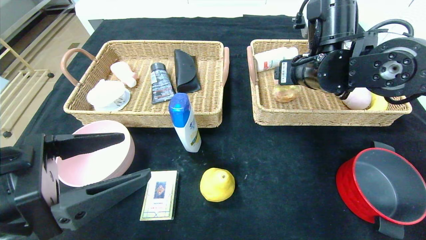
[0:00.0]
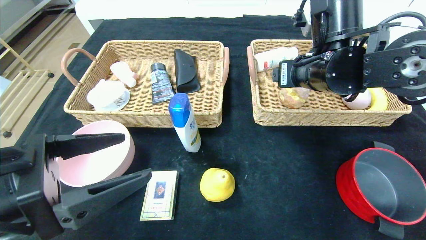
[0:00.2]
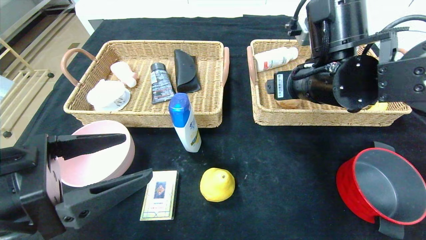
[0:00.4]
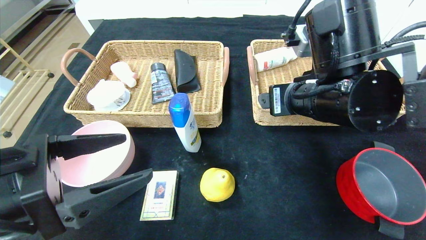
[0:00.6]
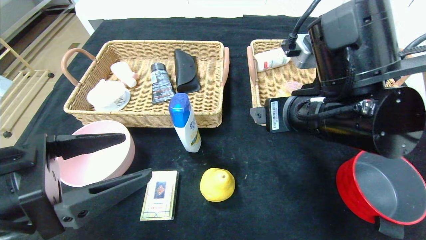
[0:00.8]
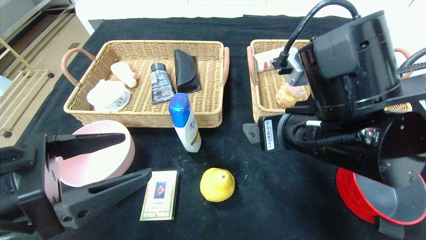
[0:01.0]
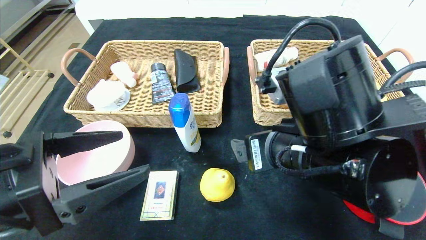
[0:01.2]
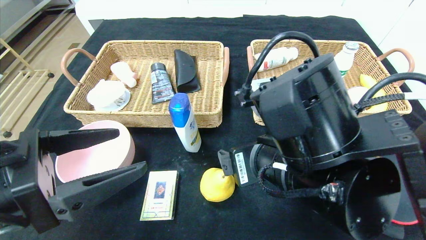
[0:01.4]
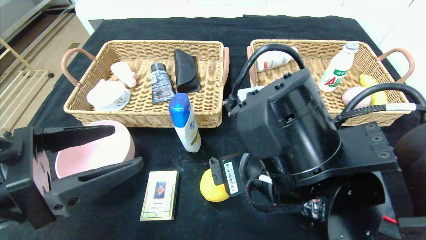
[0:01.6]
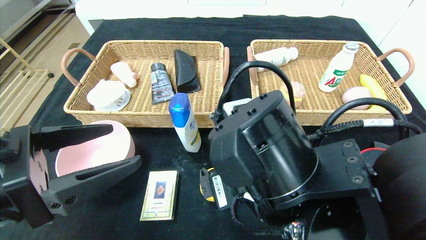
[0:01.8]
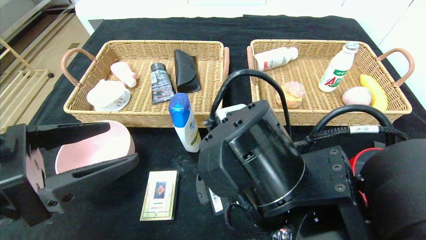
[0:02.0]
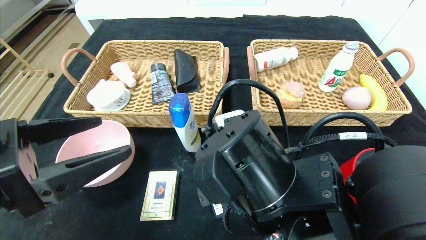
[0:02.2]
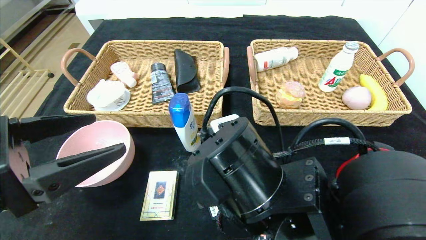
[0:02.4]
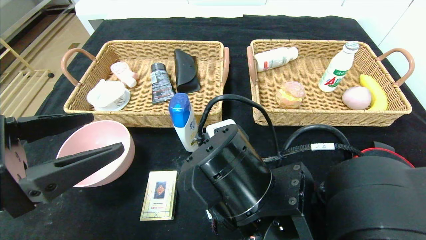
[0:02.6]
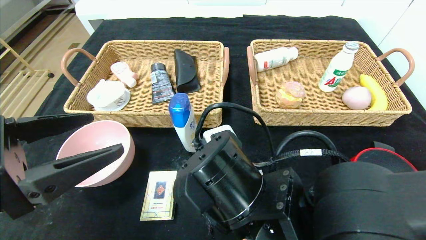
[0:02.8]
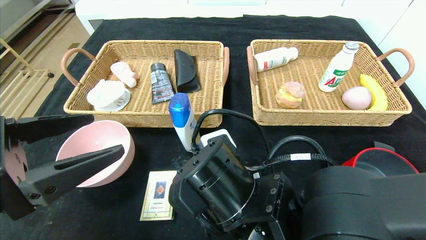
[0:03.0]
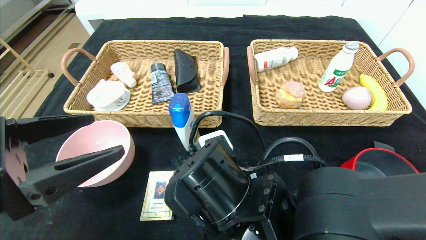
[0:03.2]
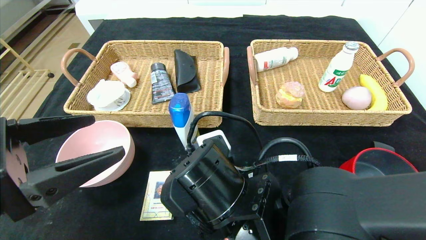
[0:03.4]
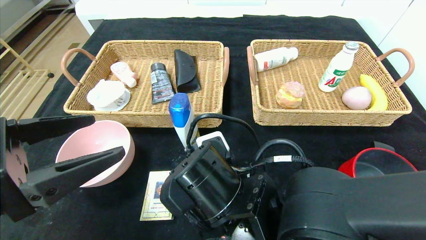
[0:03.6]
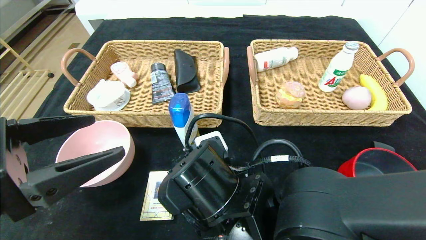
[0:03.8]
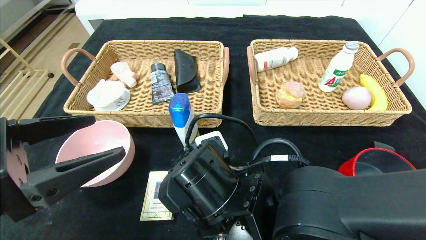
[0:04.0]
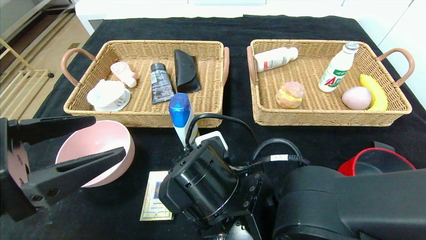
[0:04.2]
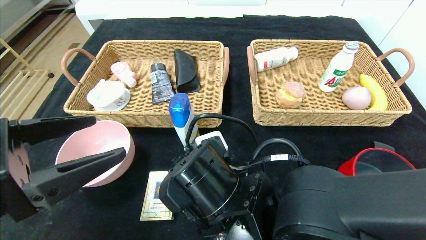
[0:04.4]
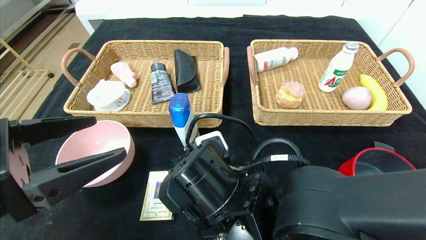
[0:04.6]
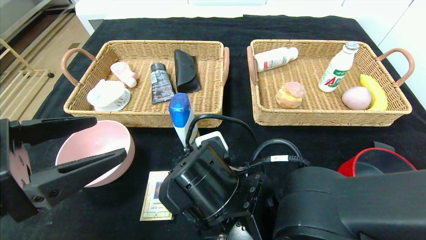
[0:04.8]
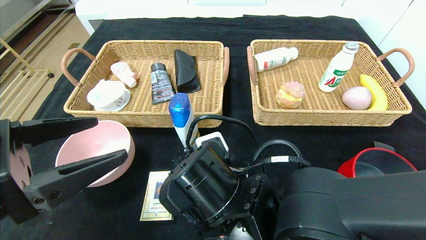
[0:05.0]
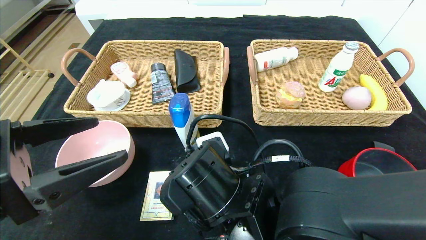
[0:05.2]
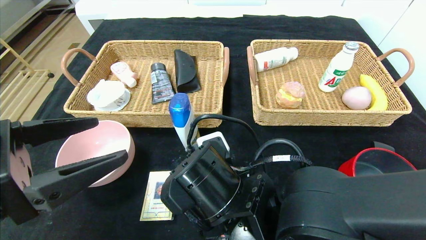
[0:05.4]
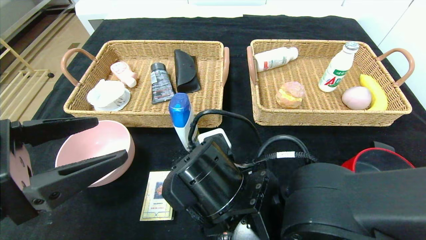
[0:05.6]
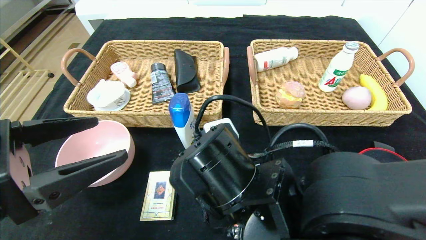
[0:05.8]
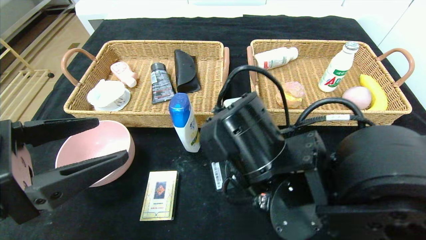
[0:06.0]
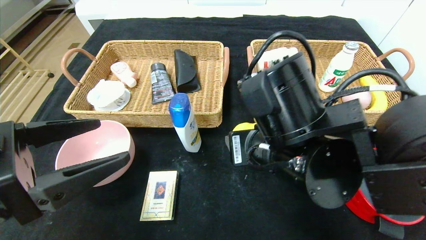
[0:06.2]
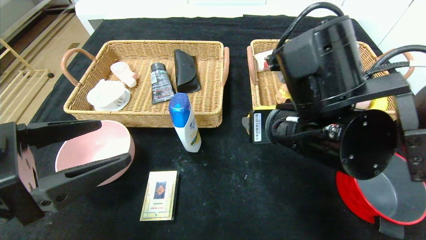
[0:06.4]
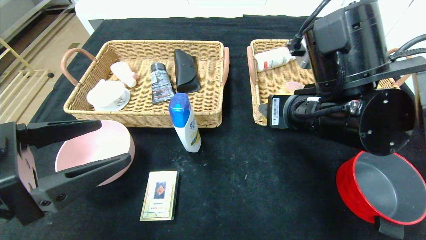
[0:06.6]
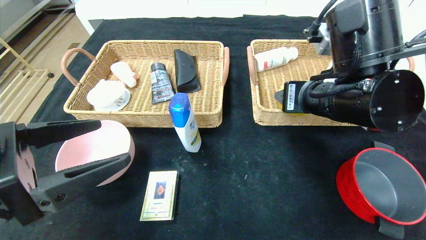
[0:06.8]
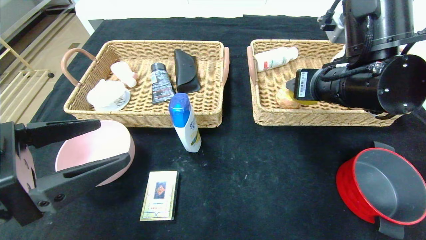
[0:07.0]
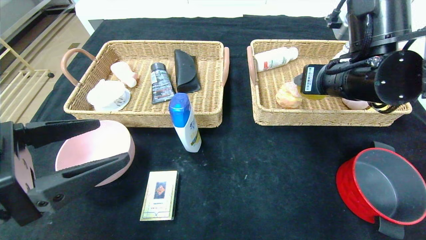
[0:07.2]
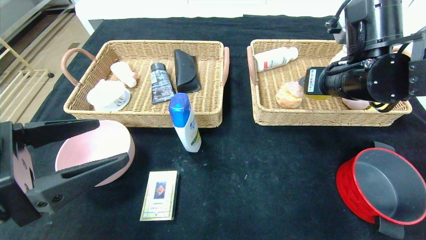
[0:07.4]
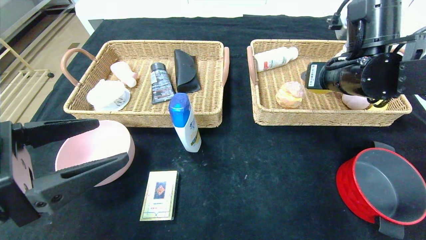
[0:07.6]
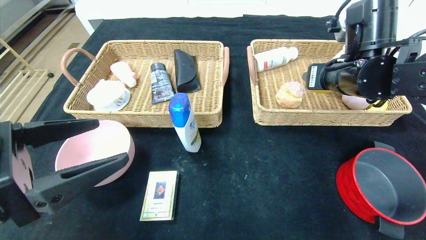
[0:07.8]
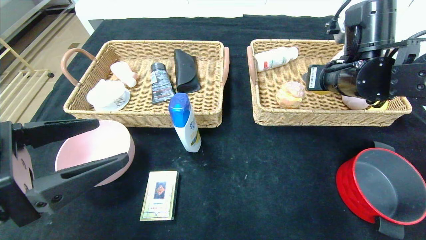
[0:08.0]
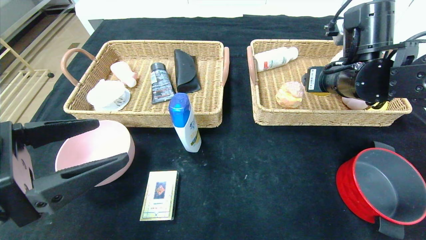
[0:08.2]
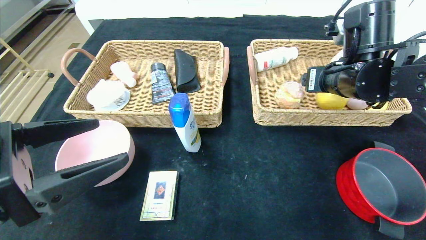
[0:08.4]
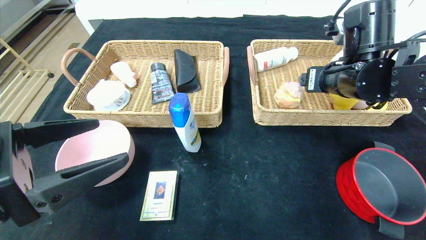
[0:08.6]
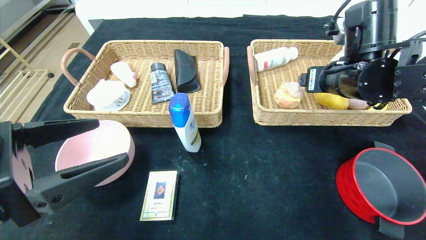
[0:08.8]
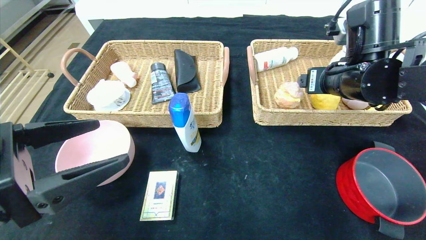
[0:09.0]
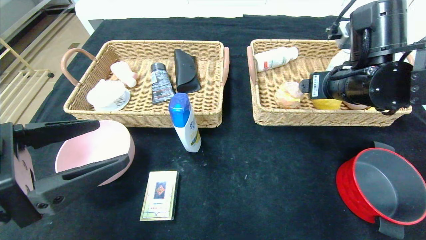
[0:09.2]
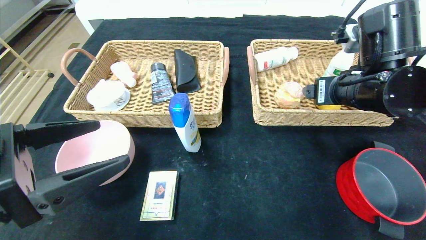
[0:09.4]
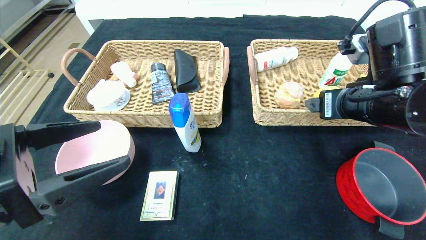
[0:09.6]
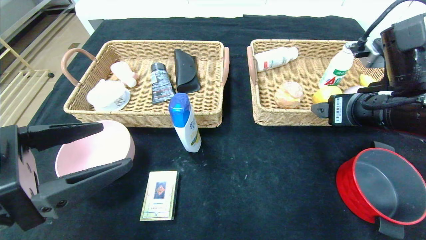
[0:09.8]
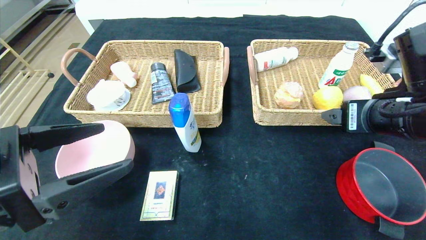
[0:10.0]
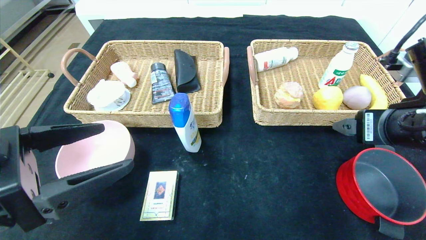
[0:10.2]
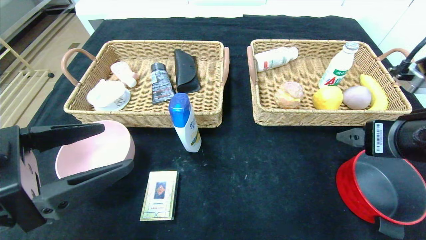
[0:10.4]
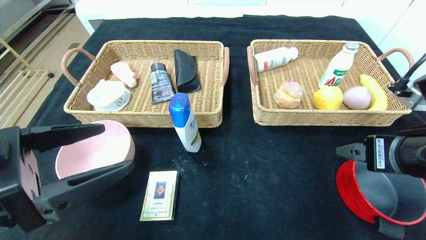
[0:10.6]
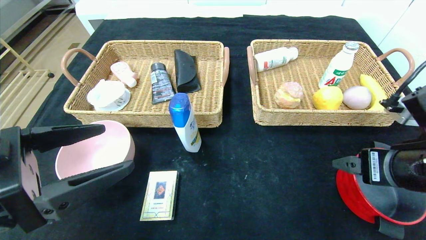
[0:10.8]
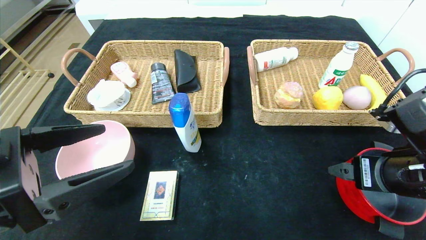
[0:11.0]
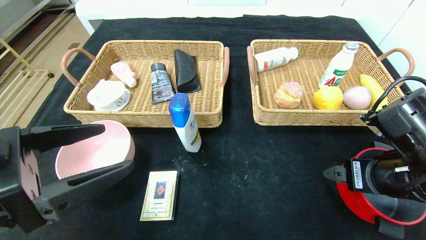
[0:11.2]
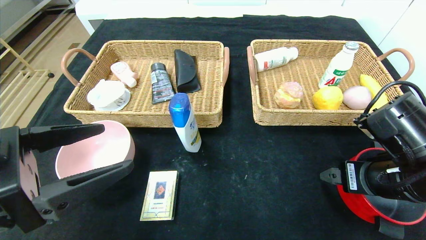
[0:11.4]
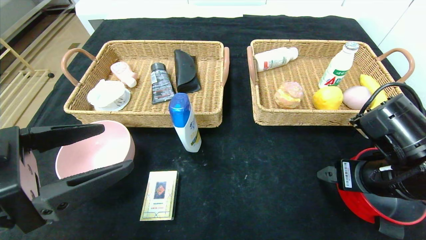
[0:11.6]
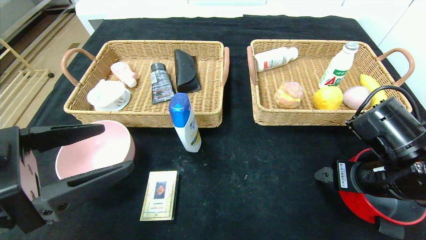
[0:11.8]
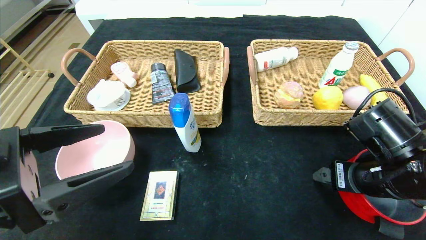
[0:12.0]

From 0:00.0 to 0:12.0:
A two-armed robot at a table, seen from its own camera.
Step, from 0:00.4 to 0:09.4: Grasp the pear and put it in the right basket.
From 0:00.0 to 0:01.6: The right gripper is displaced backward, to the left and downward by about 20 cm.
From 0:01.6 to 0:03.0: The right gripper is displaced downward by roughly 5 cm.
From 0:03.0 to 0:04.4: The grippers move only a little.
From 0:04.4 to 0:06.0: The right gripper changes place by some 5 cm.
From 0:06.0 to 0:07.6: The right gripper travels to the right, forward and upward by roughly 20 cm.
From 0:07.6 to 0:09.0: The two grippers keep their place.
From 0:09.0 to 0:10.4: The right gripper heads backward, covering roughly 15 cm.
From 0:10.4 to 0:12.0: The right gripper travels downward by about 5 cm.

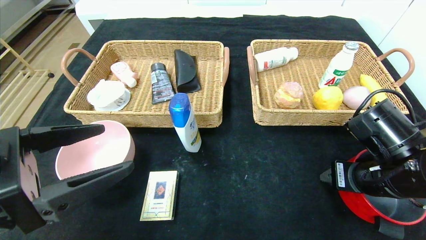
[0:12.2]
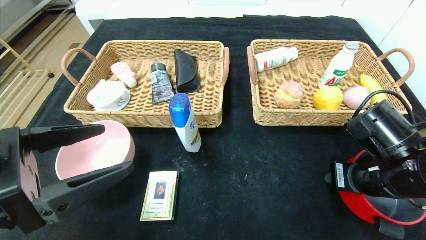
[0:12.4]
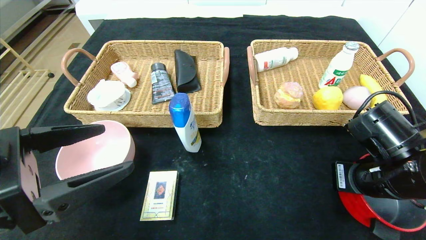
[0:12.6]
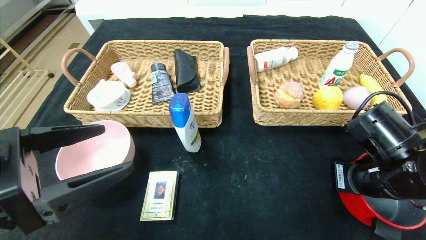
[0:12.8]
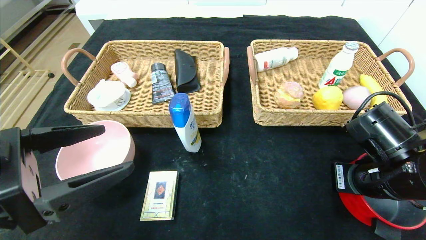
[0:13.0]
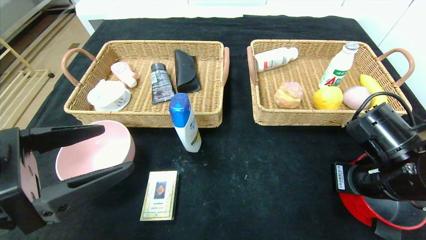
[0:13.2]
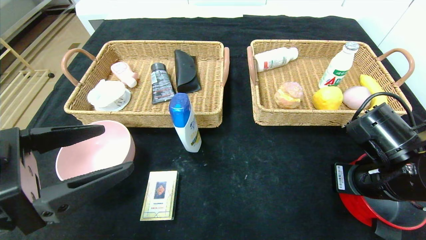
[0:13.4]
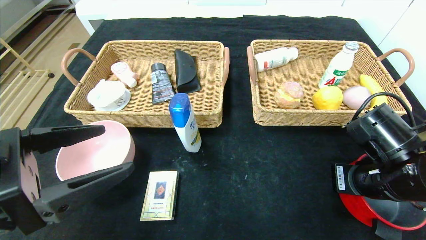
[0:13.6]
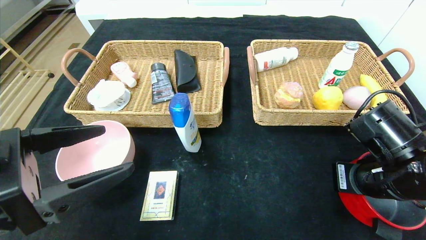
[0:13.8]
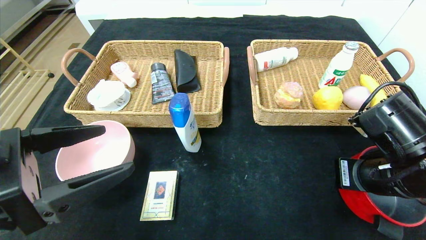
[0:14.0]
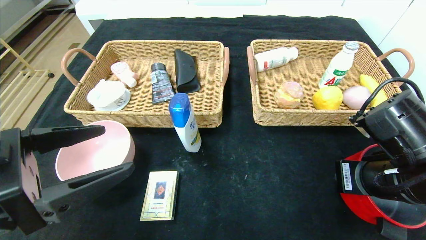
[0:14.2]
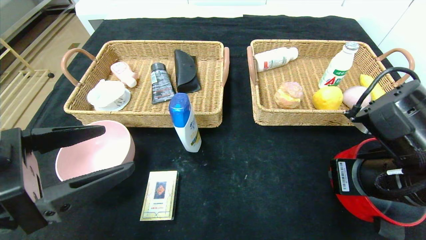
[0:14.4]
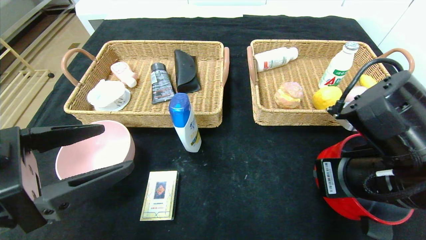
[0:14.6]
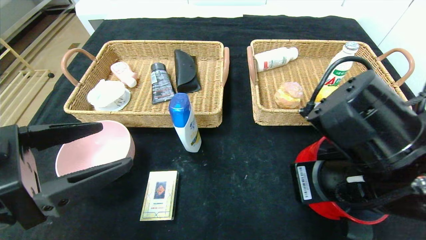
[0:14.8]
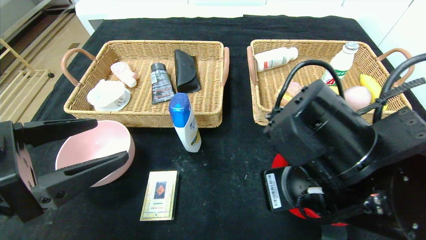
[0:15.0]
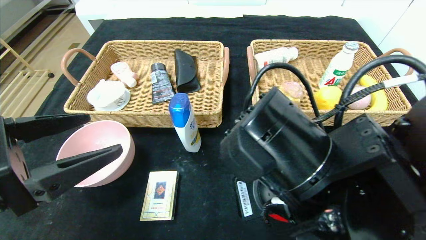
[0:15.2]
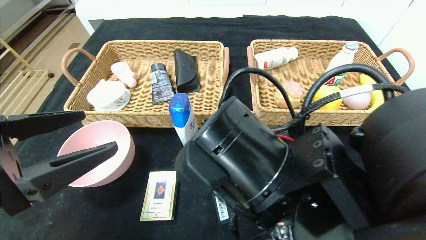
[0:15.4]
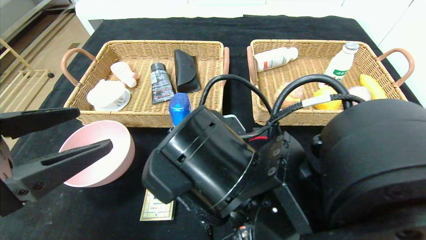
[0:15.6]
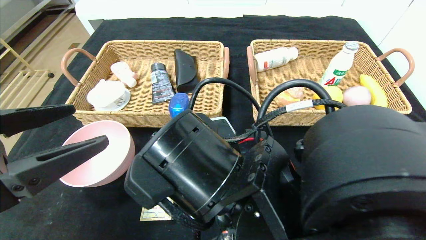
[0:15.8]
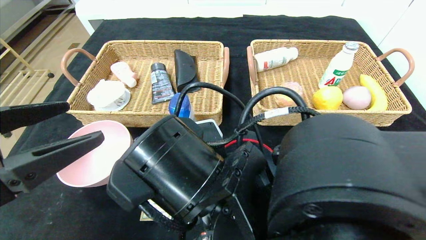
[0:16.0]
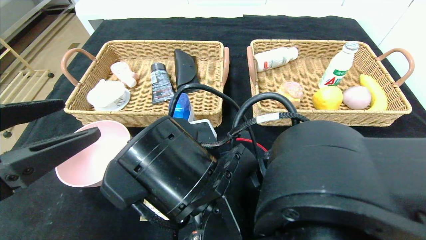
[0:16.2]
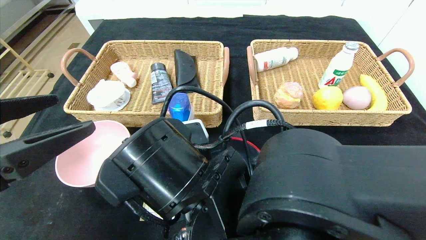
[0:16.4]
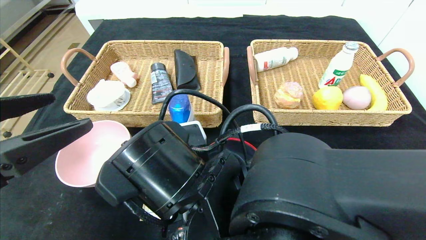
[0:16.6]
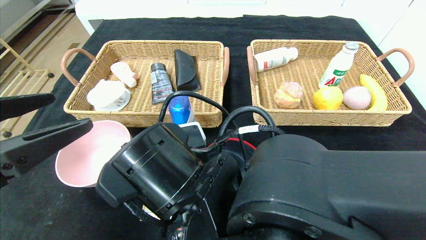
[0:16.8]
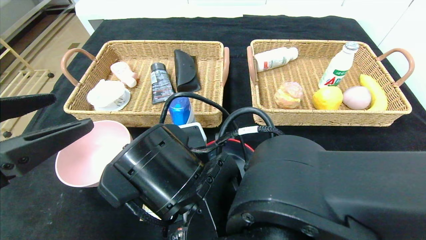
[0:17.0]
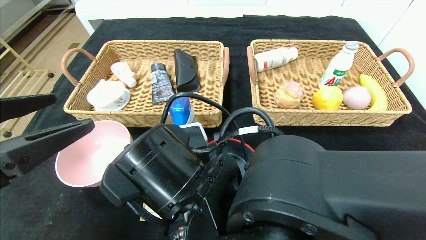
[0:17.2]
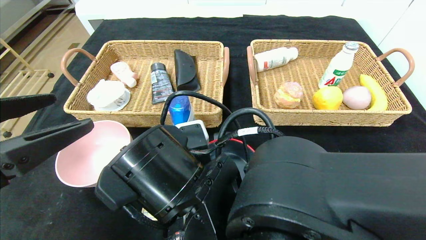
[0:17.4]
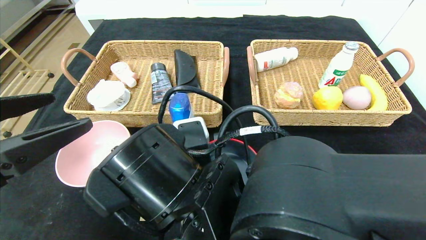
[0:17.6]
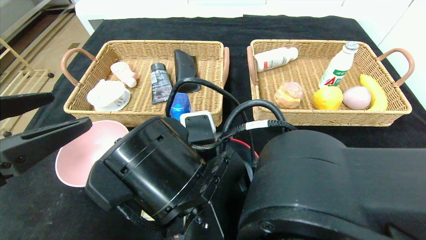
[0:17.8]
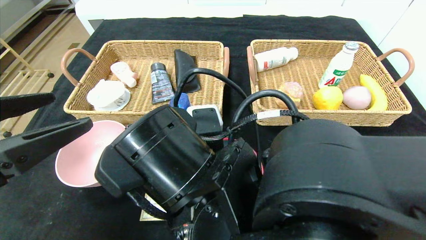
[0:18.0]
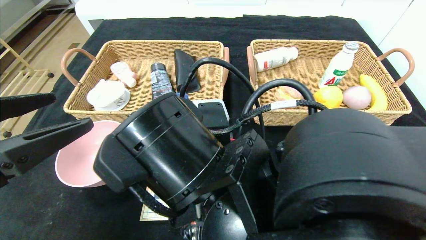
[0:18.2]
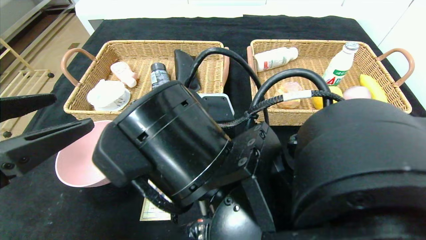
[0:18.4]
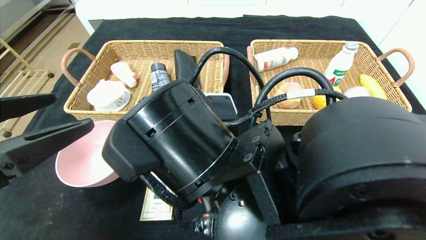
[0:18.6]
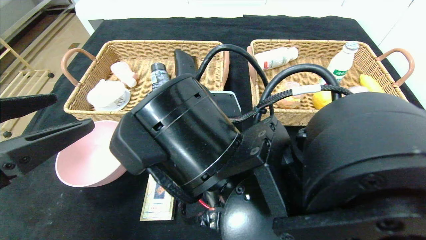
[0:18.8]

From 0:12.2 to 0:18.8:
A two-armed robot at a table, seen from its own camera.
From 0:12.2 to 0:13.8: The right gripper closes its fingers.
From 0:13.8 to 0:15.4: The right gripper moves to the left, approximately 20 cm.
From 0:15.4 to 0:17.2: The right gripper shifts approximately 5 cm to the left, and opens up.
From 0:17.2 to 0:18.8: The right gripper moves about 5 cm, and opens up.
